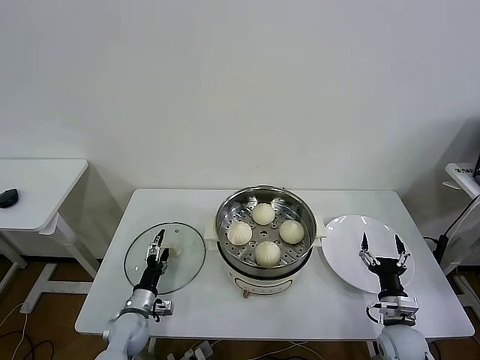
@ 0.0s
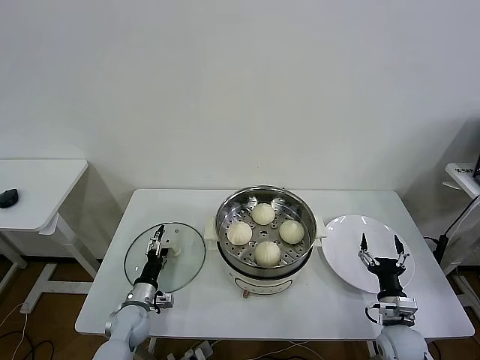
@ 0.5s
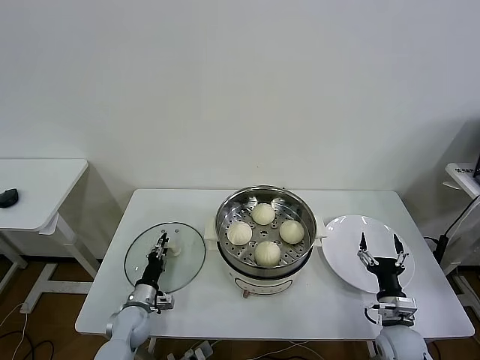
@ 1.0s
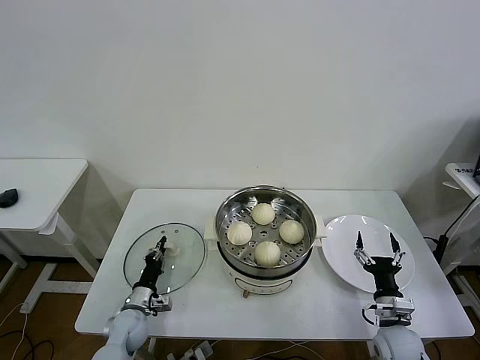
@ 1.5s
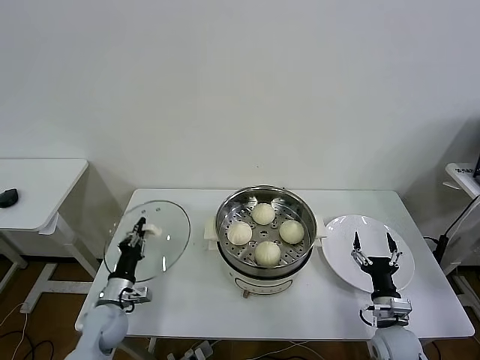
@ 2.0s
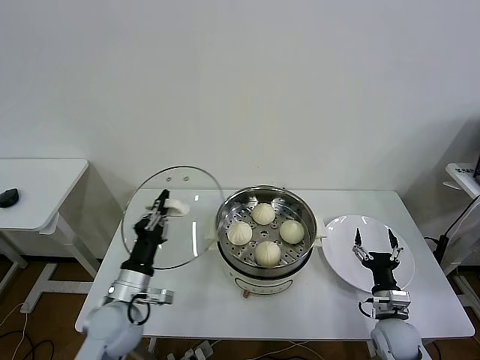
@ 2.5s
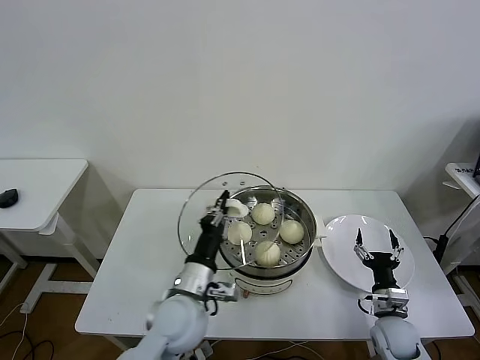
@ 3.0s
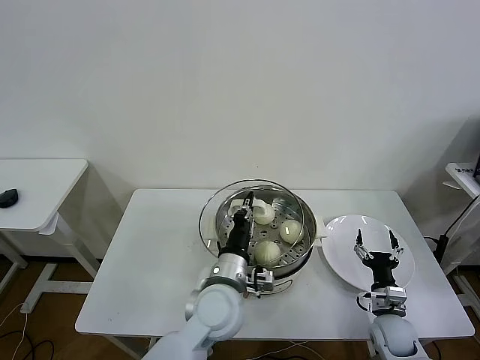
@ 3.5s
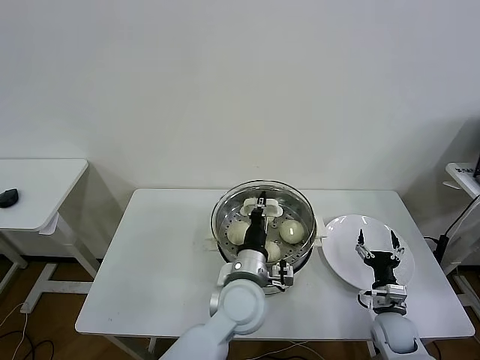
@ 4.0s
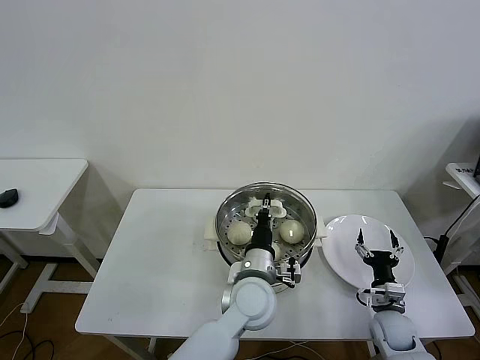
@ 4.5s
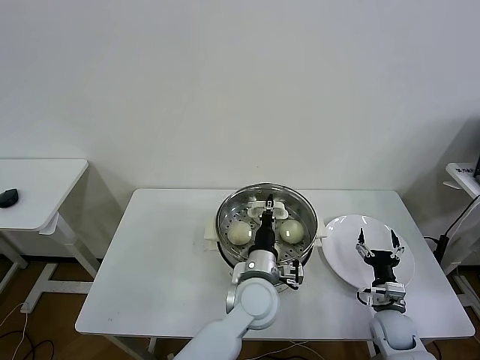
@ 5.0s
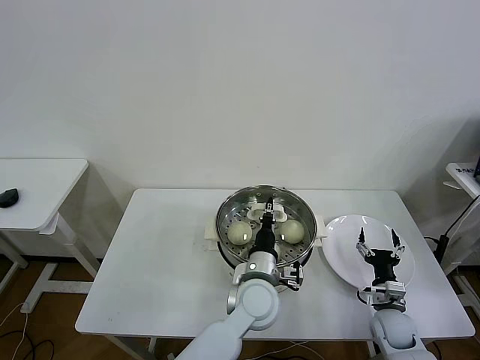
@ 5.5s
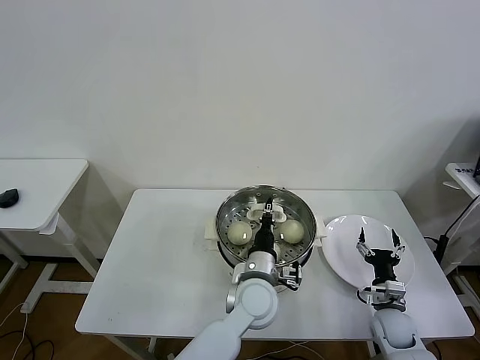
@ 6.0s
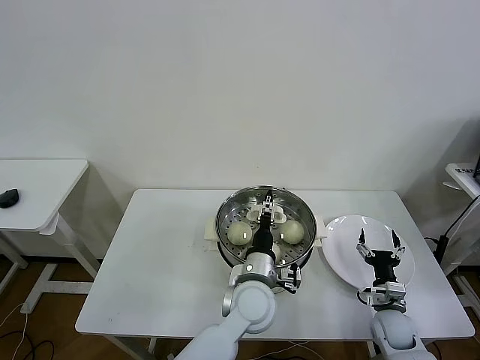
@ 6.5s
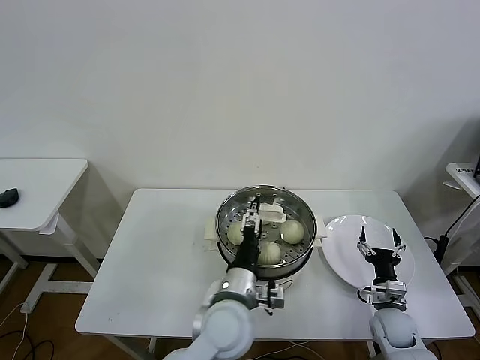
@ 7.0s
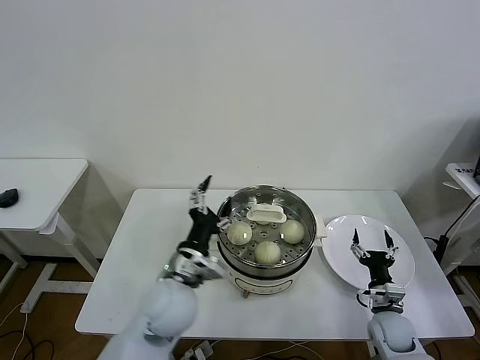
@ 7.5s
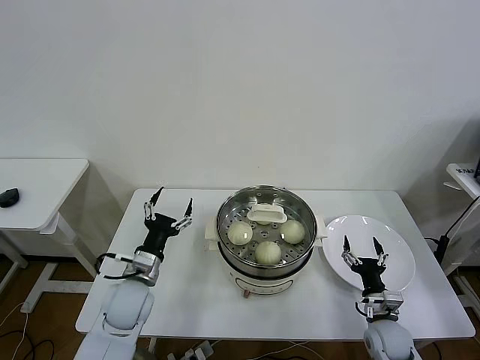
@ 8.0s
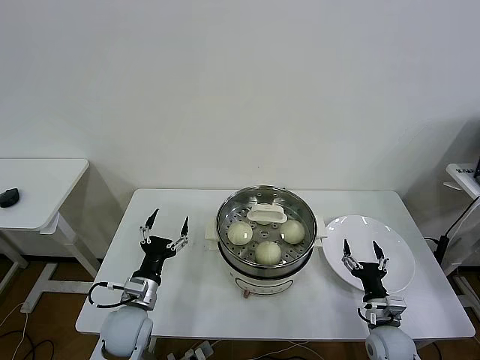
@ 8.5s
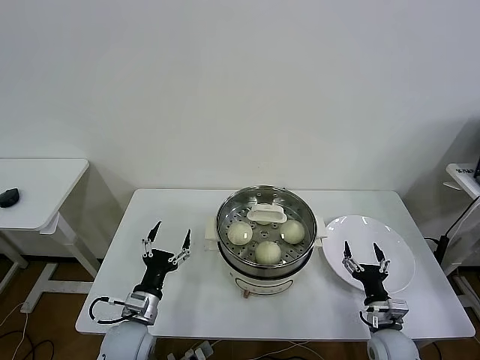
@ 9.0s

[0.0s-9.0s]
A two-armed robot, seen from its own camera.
Task of the whole recording: take steamed baozi put them in steamer then cover it.
Step, 1.5s to 6.0s: Place the pot lid on the steamer with left gripper.
0.0s to 2.0s: The left gripper heads upward, covering about 5 cm, and closes its fingers.
2.0s to 4.5s: The left gripper shifts some 35 cm to the right and upward.
4.5s to 7.0s: The left gripper ends up about 5 cm from where it was, and opens.
7.0s to 9.0s: The right gripper moves backward, roughly 5 cm. Meanwhile the left gripper moves to the left and downward, approximately 25 cm.

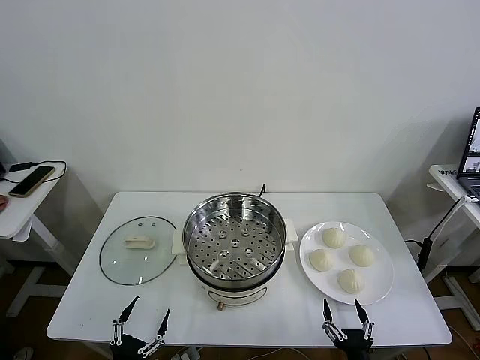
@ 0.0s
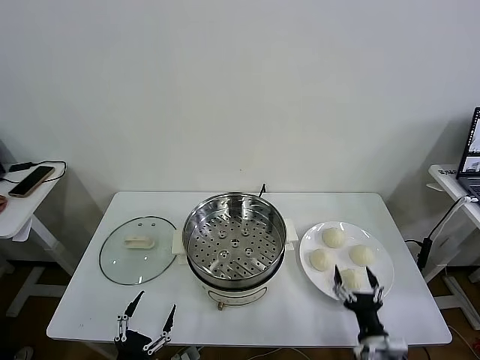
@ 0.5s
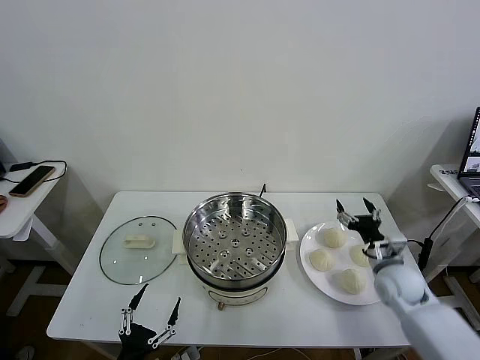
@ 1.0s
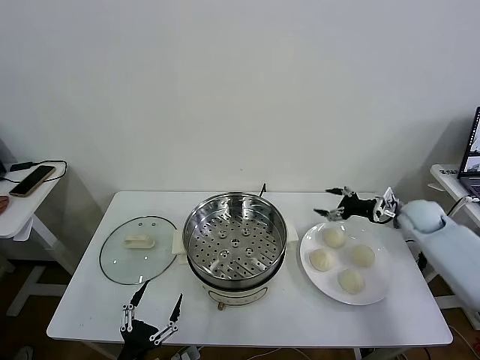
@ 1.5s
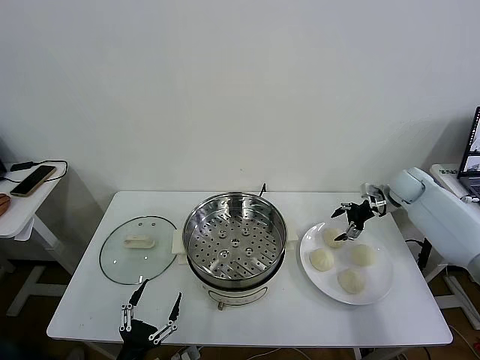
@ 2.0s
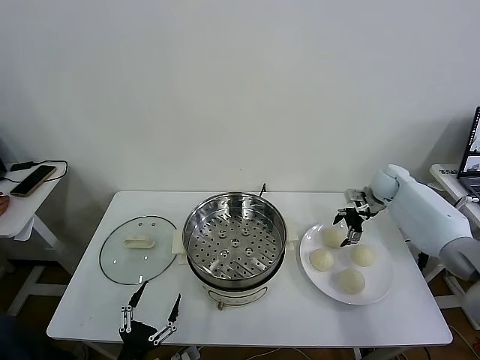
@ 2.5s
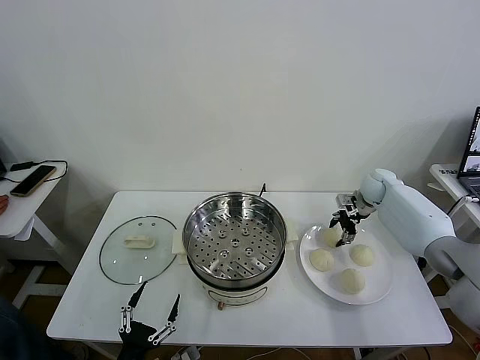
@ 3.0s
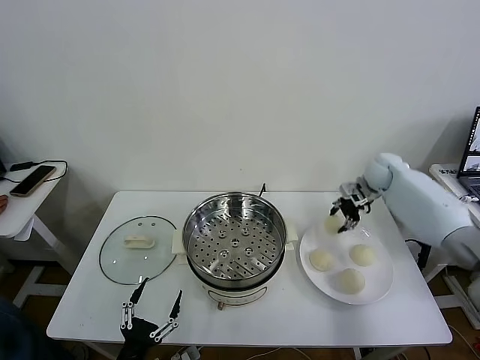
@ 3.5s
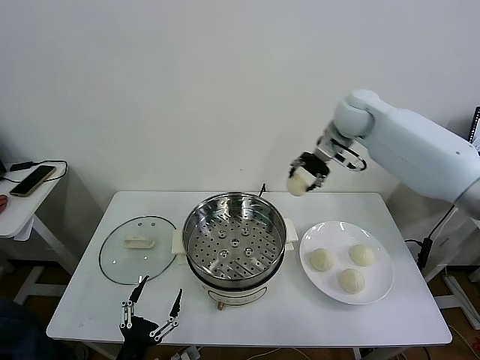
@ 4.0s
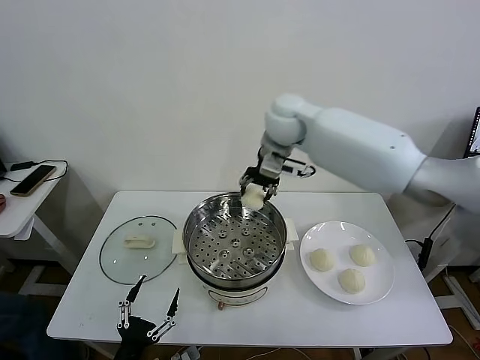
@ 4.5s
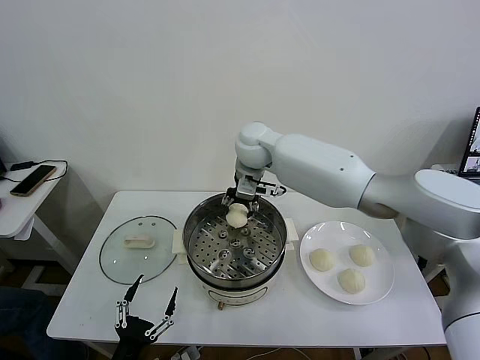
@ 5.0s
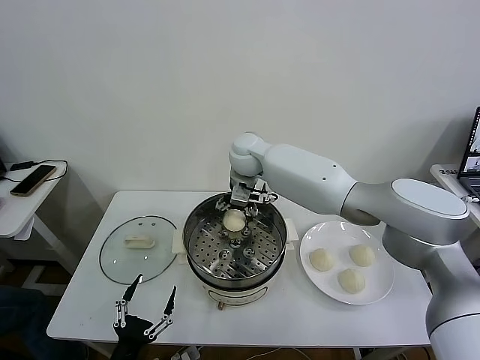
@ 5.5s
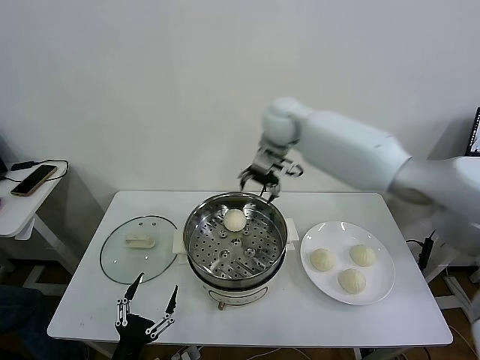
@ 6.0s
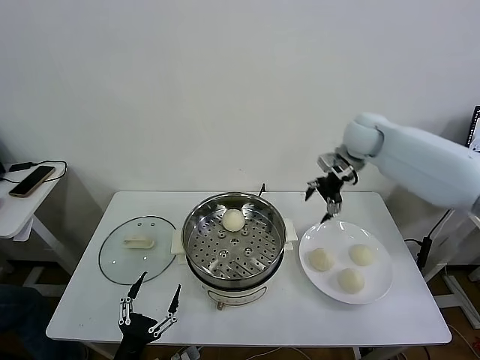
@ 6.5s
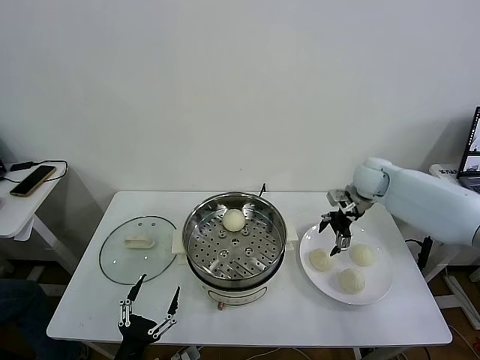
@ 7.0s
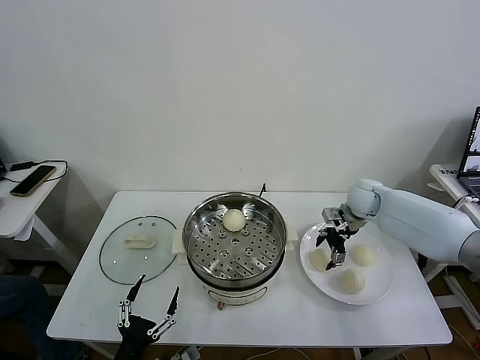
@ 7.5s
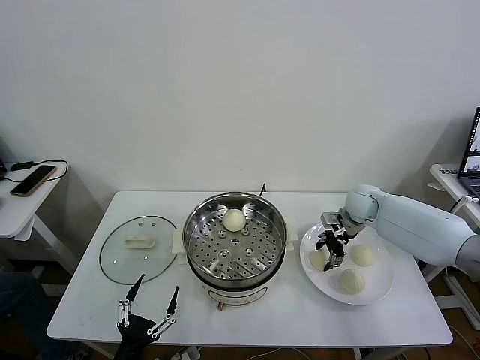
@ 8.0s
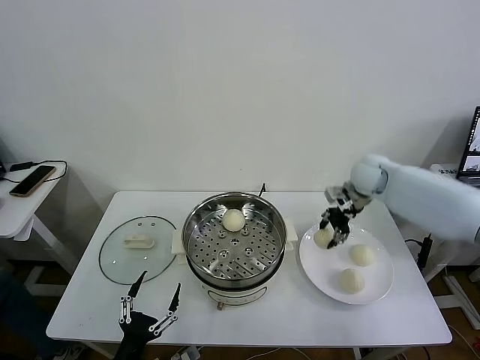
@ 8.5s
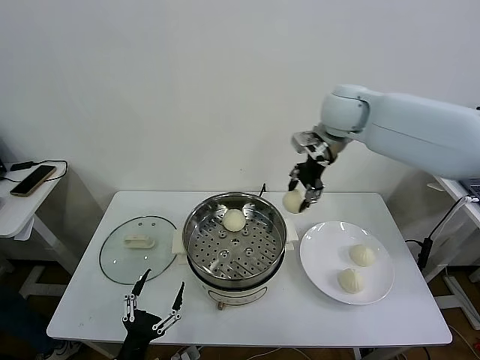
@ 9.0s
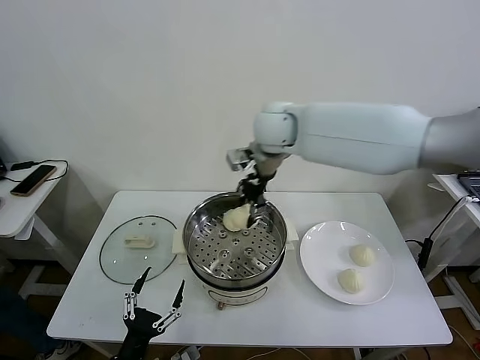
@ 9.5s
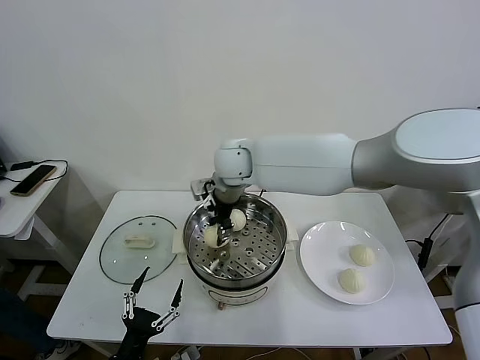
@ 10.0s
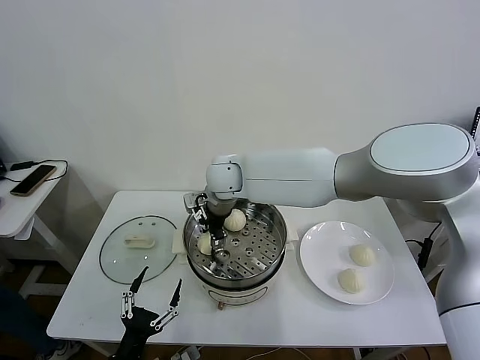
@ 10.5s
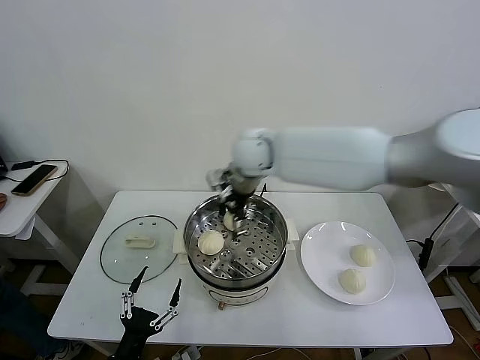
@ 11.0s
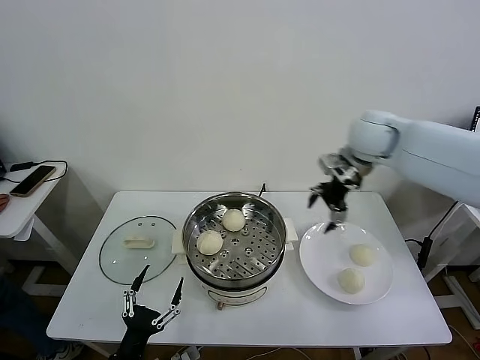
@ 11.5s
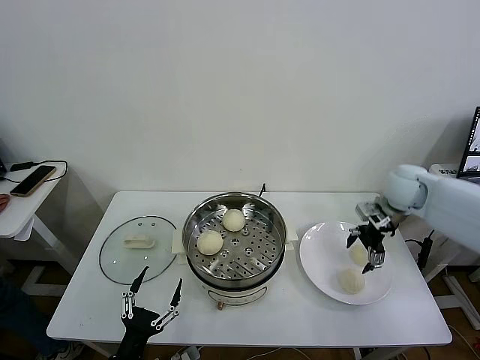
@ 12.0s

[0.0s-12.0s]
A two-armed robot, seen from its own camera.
Task of the whole recording: take steamed baozi put them in steamer then cover it.
Step, 0.0s to 3.0s: Grasp the baozi in the plate with right gripper.
Step, 3.5s to 5.5s: Place the baozi on the steamer with right gripper.
Step, 6.0s to 8.0s: Grasp the baozi in the plate with right gripper.
Step, 8.5s to 10.5s: Place the baozi on the steamer with right gripper.
2.0s to 4.0s: The right gripper moves to the left and upward, about 30 cm, and closes its fingers.
4.0s to 6.0s: The right gripper shifts approximately 5 cm to the left, and opens.
6.0s to 8.0s: The right gripper moves downward and to the right, approximately 30 cm, and closes up.
8.0s to 10.0s: The right gripper shifts approximately 40 cm to the left and upward, and closes.
10.0s to 12.0s: The right gripper shifts about 40 cm to the right, and opens.

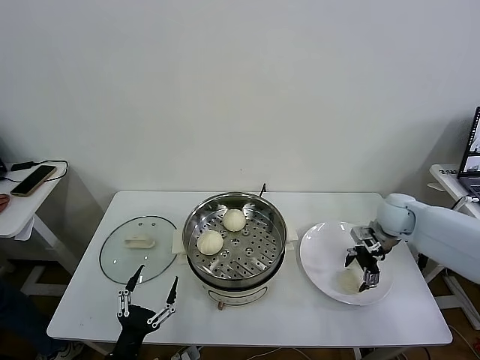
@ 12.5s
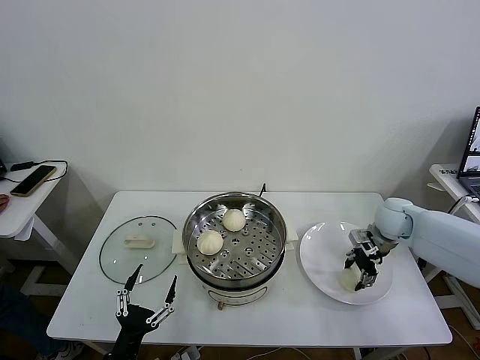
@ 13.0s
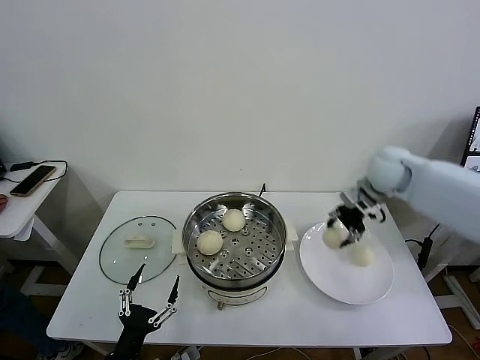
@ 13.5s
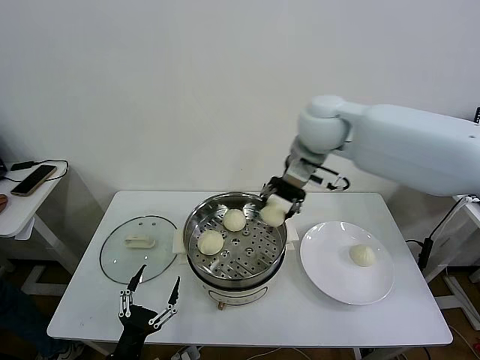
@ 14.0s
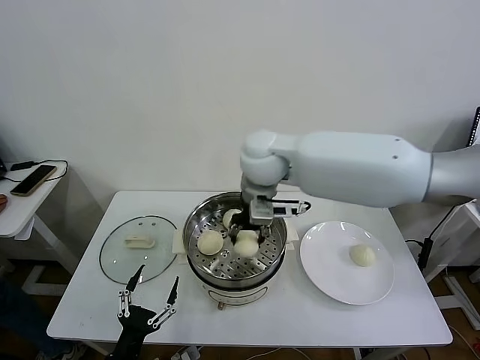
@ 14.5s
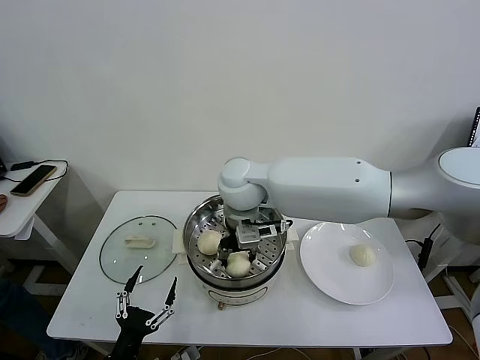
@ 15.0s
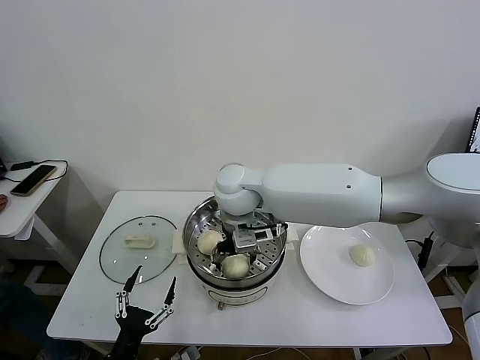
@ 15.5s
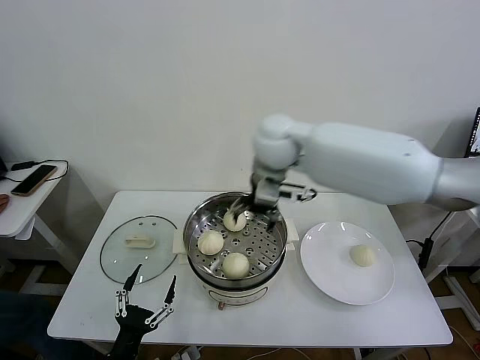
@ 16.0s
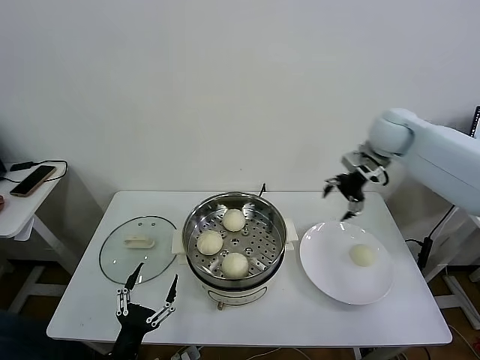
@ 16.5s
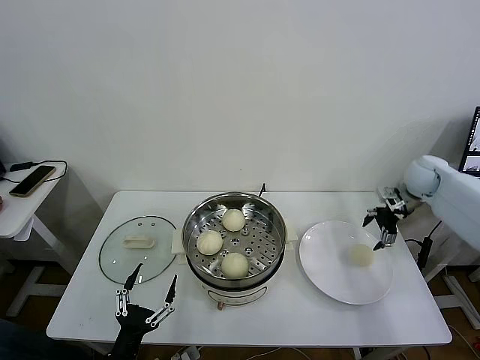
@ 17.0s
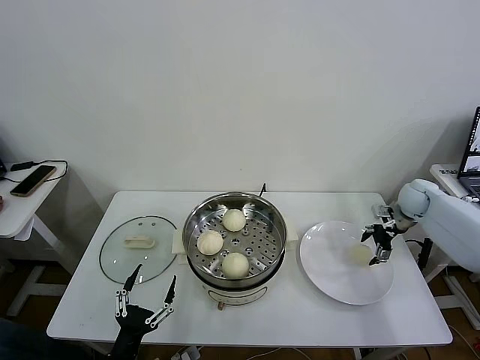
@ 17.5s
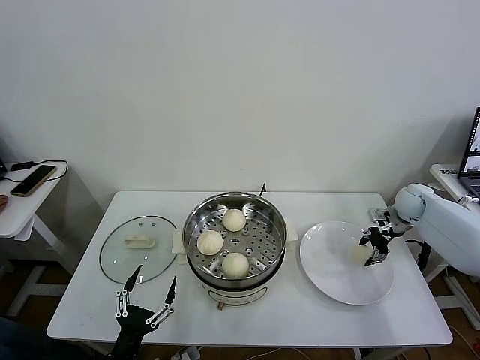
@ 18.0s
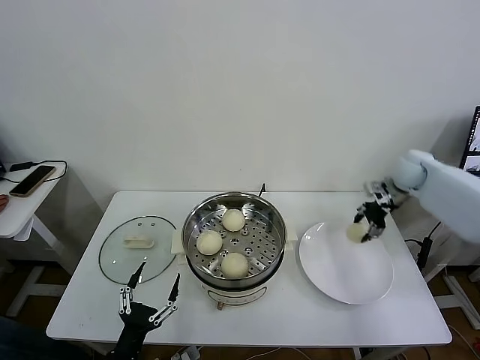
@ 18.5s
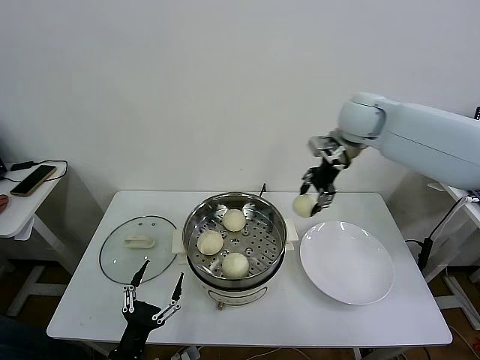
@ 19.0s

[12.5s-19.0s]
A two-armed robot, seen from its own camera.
Task of the whole recording: take steamed baozi put them in steamer then cover it.
Step, 13.5s to 15.0s: Place the baozi on the steamer with right gripper.
Step, 15.5s to 18.0s: Grasp the baozi in the plate with right gripper.
12.5s to 14.5s: The right gripper moves to the left and upward, approximately 40 cm, and closes its fingers.
14.5s to 17.0s: The right gripper travels to the right by approximately 40 cm, and opens up.
17.0s to 19.0s: The right gripper moves to the left and upward, roughly 25 cm, and closes its fingers.
